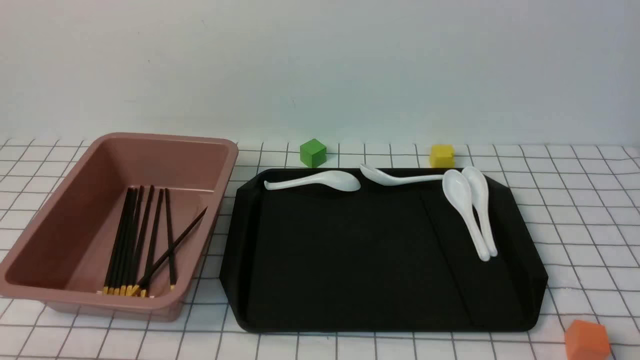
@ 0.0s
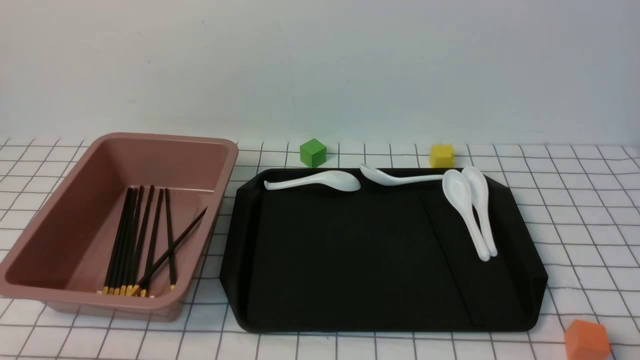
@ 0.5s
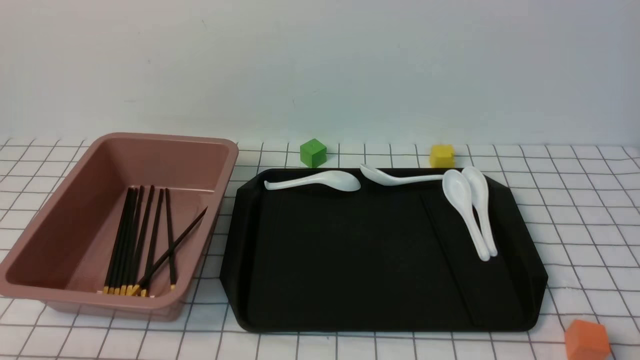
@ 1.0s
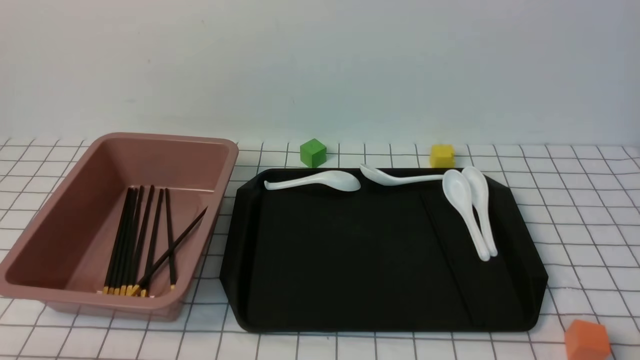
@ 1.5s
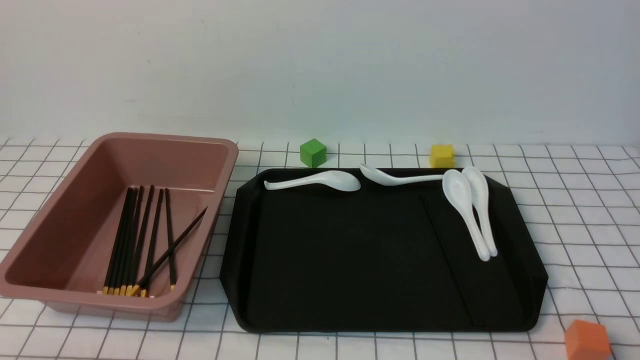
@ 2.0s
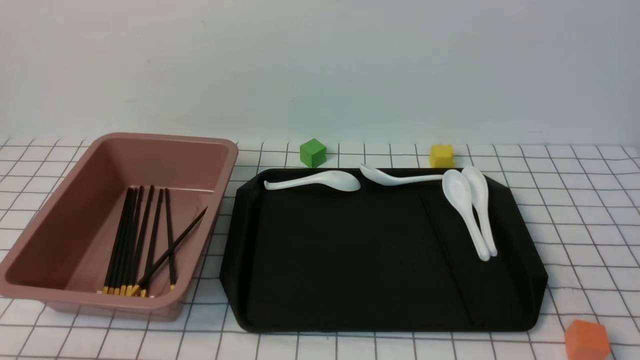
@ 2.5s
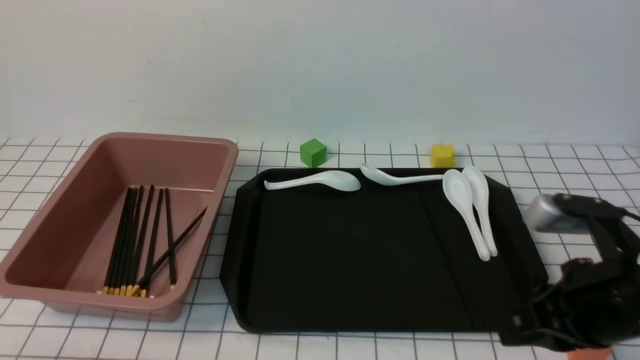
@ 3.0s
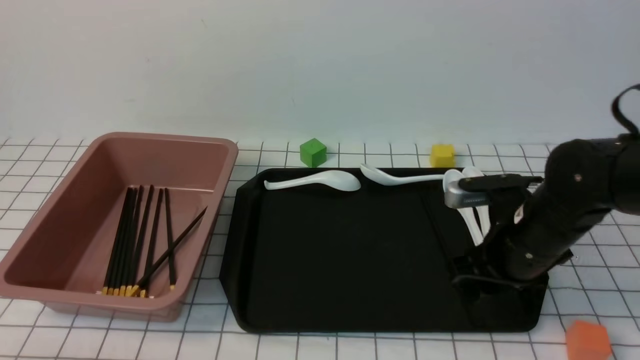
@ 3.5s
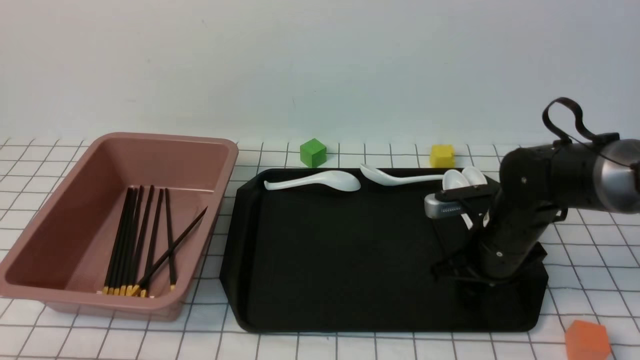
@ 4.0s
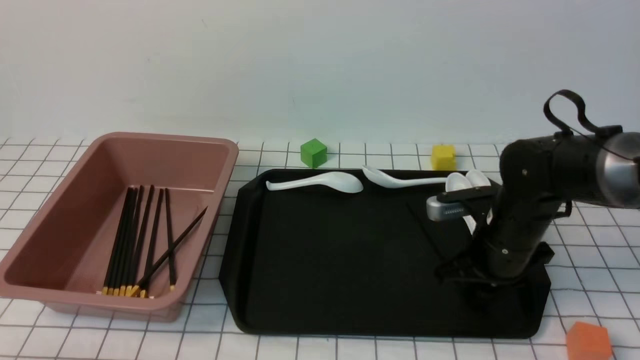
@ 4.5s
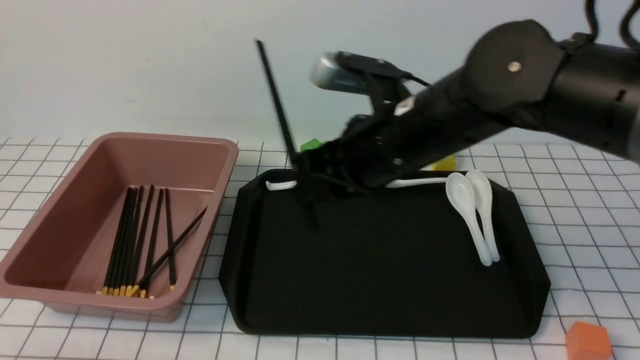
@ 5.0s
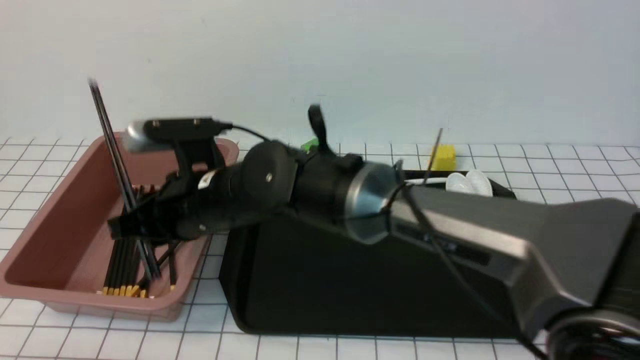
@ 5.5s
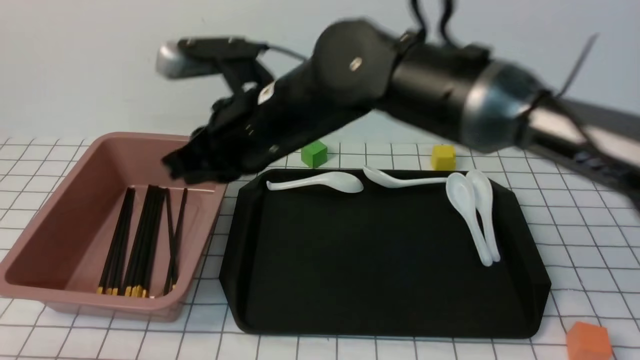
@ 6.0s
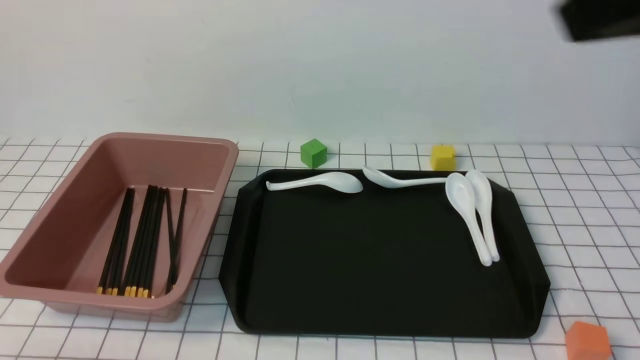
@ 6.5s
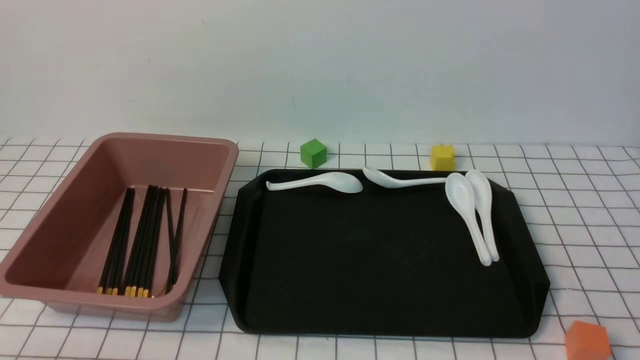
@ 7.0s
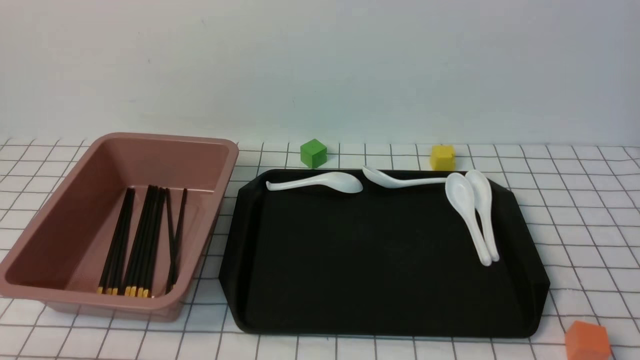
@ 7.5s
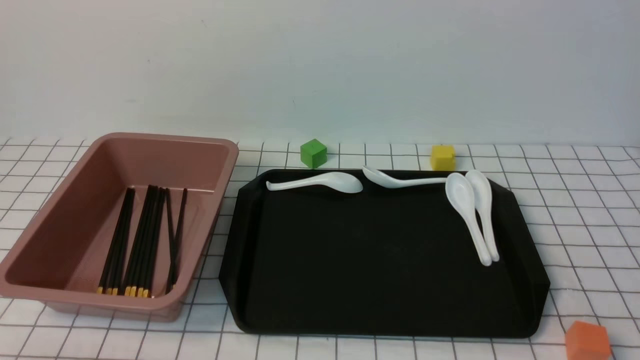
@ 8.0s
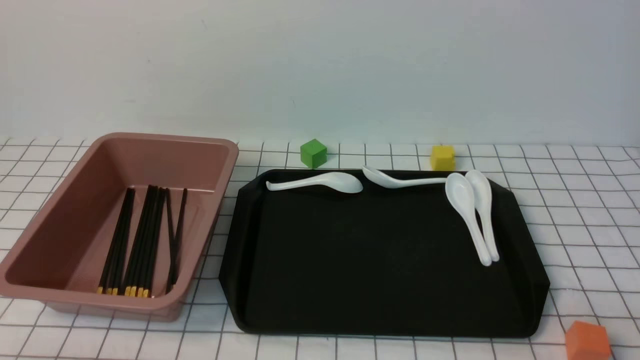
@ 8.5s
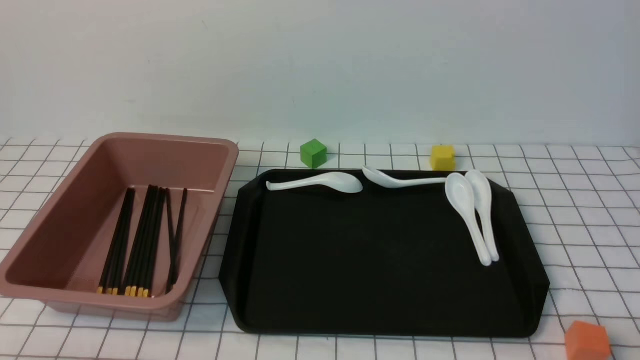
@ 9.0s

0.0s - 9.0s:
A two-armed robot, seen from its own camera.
Step, 0.0s - 4.5s: use the right arm to grab a pair of chopsticks.
Step, 5.0s - 5.5s: use the right arm to put the chopsticks into the lunch box.
2.0s - 4.5s: The right gripper is displaced forward by roughly 30 cm.
4.5s - 7.0s: The right gripper moves backward and upward, about 35 cm, moves about 30 cm to the left and comes back, and closes up.

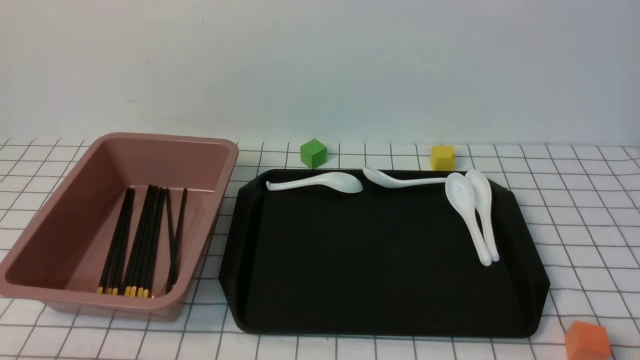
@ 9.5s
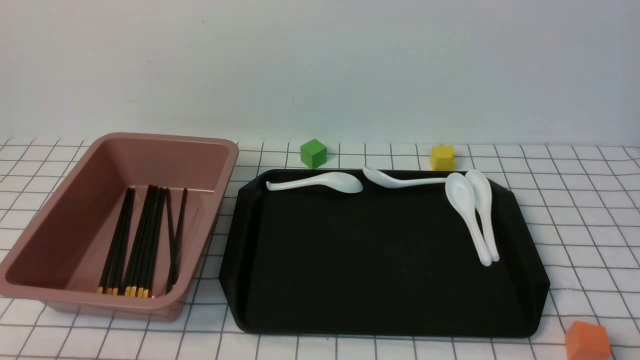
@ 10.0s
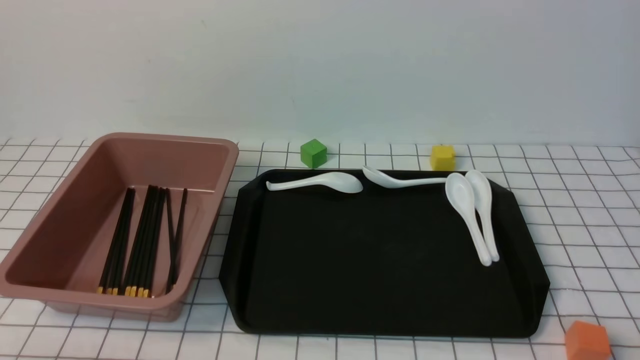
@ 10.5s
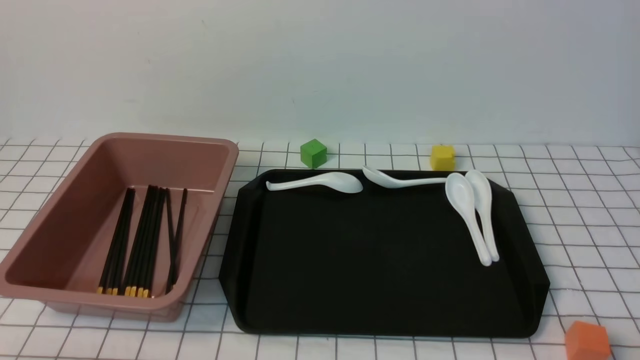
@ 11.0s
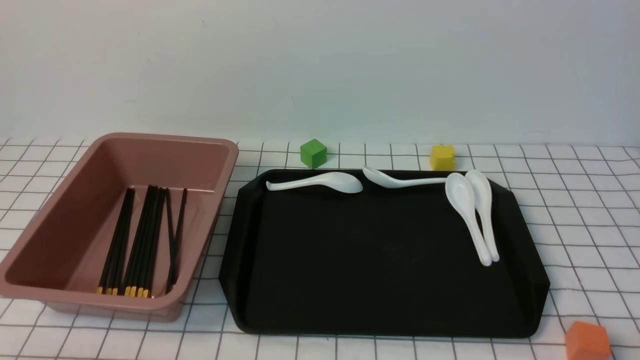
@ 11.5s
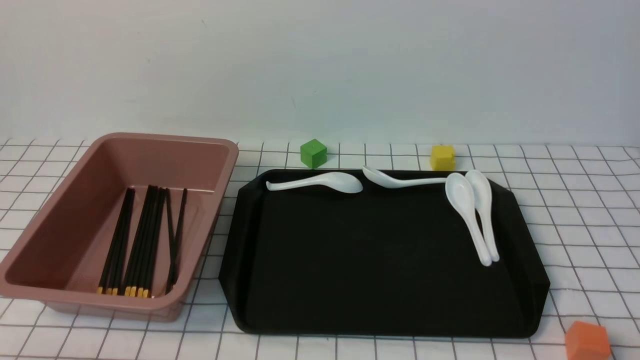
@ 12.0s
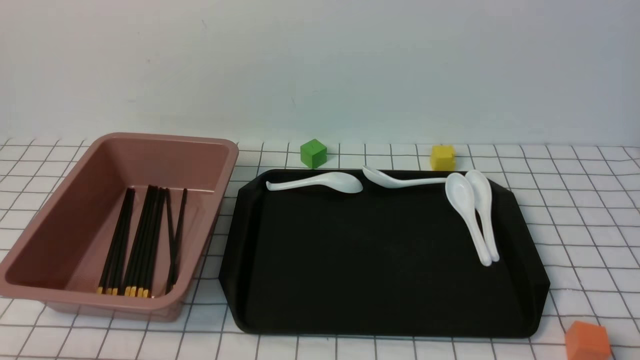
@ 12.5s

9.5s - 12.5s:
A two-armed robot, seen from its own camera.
11.0s - 12.5s: Both grippers stay put.
